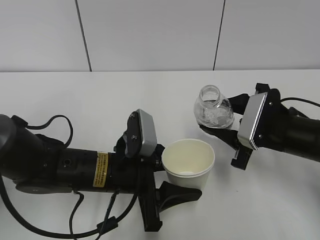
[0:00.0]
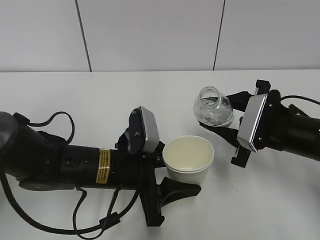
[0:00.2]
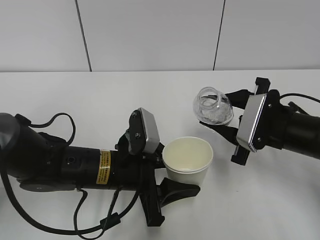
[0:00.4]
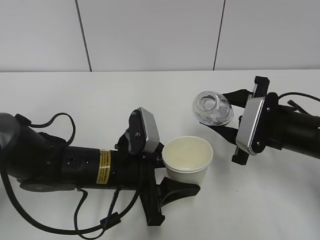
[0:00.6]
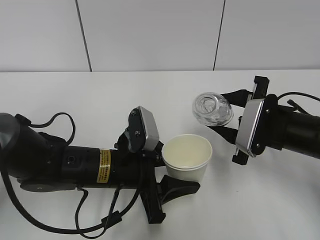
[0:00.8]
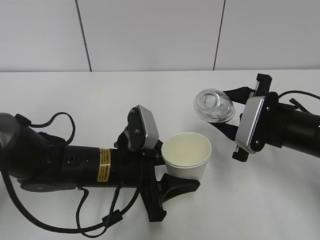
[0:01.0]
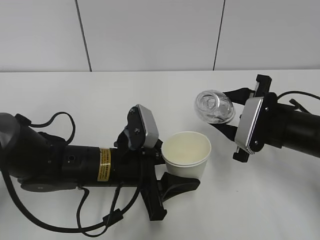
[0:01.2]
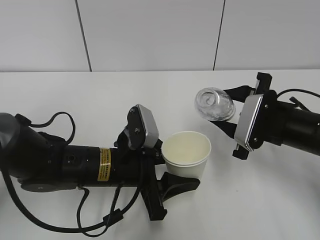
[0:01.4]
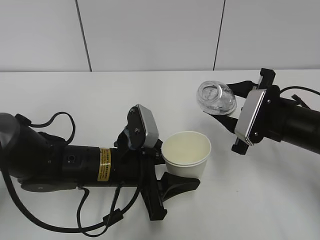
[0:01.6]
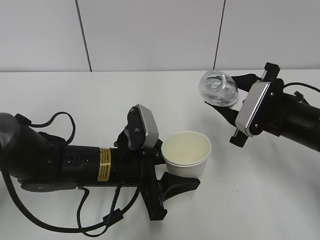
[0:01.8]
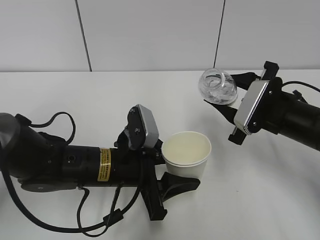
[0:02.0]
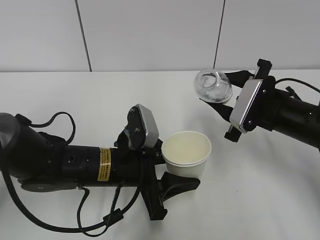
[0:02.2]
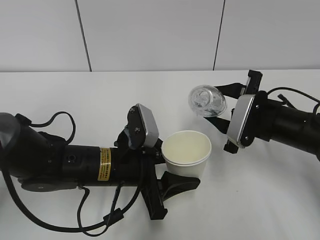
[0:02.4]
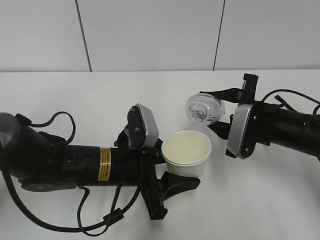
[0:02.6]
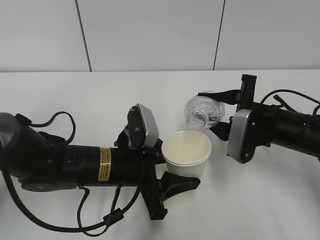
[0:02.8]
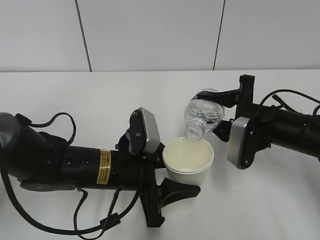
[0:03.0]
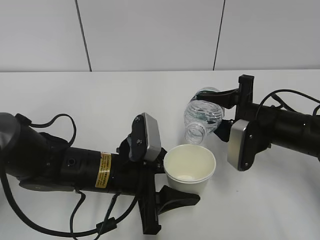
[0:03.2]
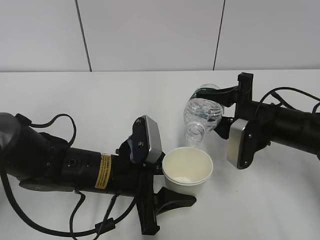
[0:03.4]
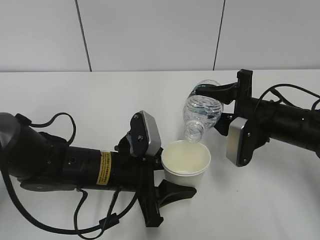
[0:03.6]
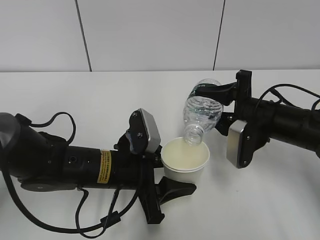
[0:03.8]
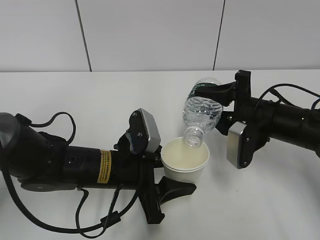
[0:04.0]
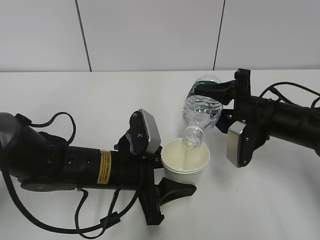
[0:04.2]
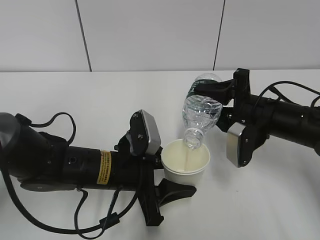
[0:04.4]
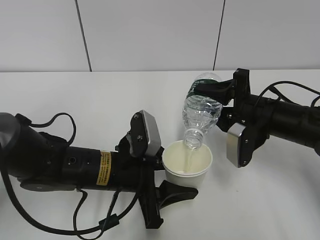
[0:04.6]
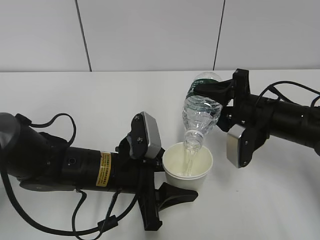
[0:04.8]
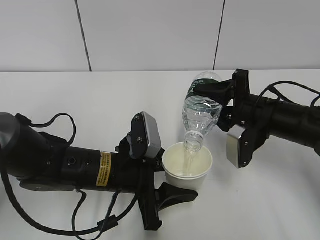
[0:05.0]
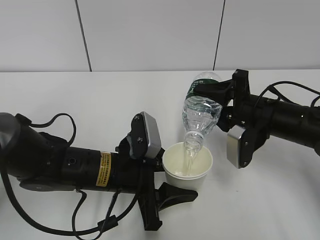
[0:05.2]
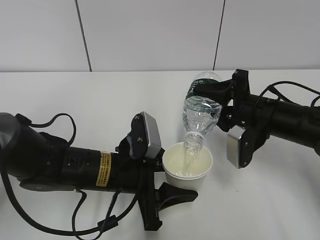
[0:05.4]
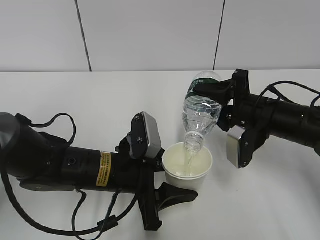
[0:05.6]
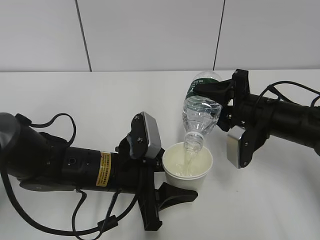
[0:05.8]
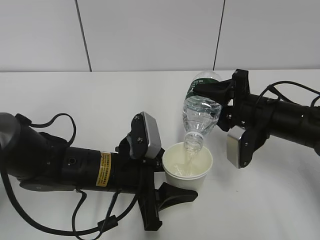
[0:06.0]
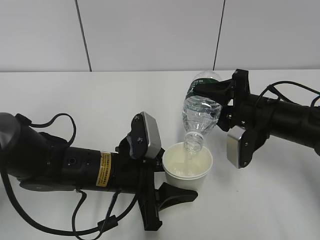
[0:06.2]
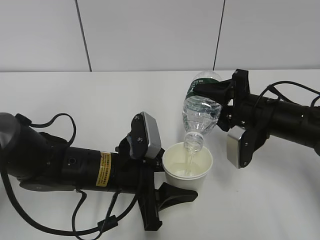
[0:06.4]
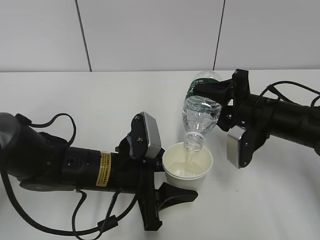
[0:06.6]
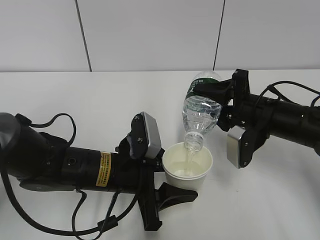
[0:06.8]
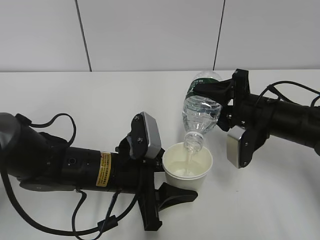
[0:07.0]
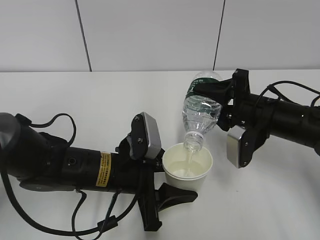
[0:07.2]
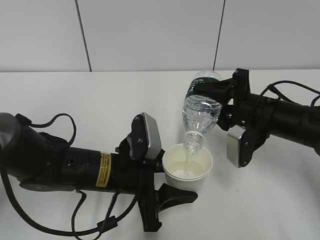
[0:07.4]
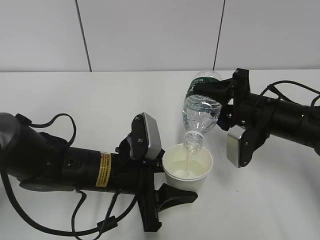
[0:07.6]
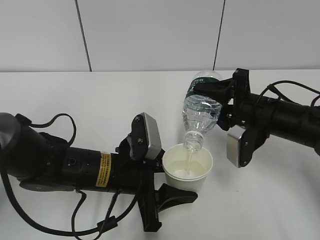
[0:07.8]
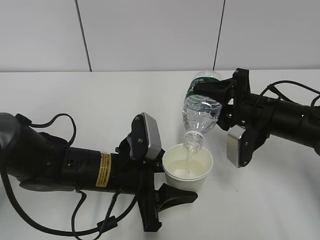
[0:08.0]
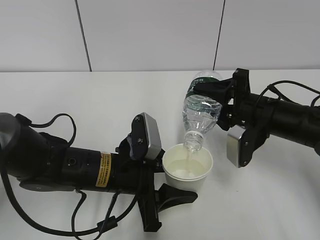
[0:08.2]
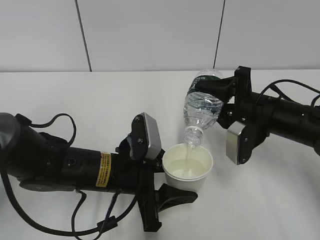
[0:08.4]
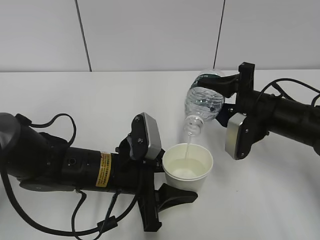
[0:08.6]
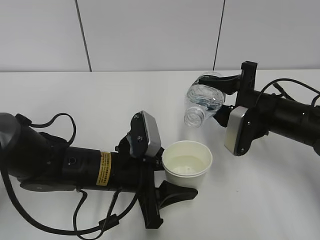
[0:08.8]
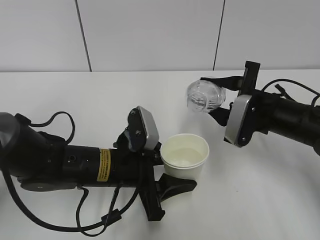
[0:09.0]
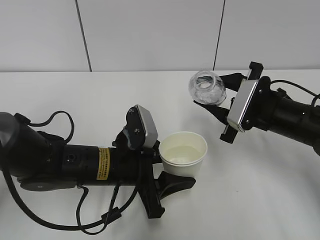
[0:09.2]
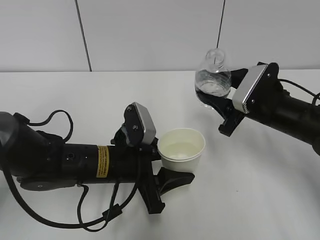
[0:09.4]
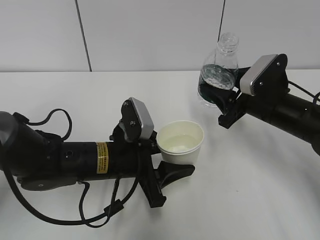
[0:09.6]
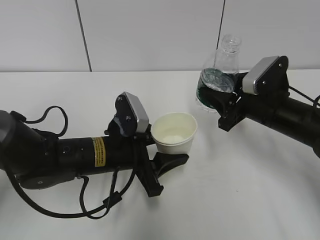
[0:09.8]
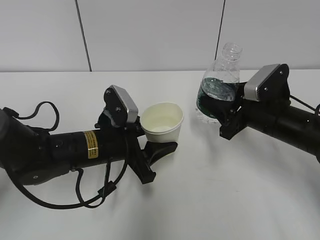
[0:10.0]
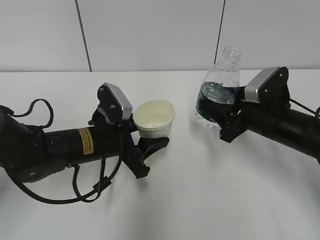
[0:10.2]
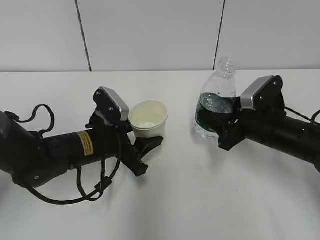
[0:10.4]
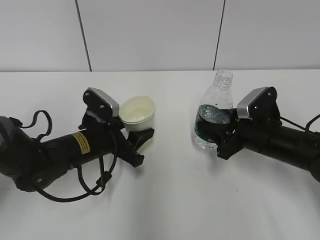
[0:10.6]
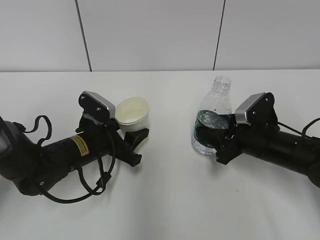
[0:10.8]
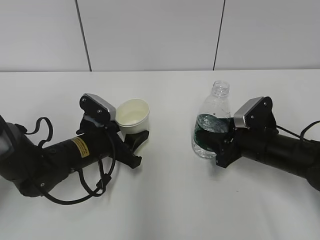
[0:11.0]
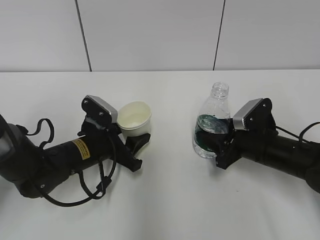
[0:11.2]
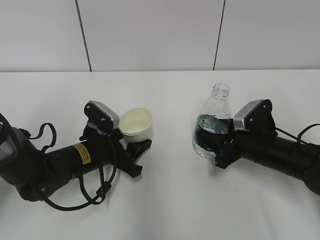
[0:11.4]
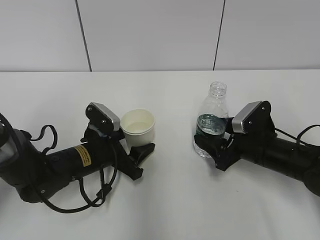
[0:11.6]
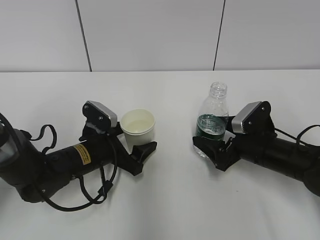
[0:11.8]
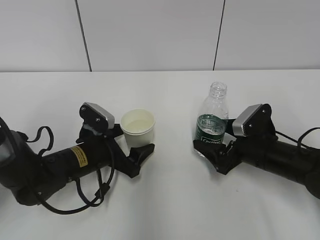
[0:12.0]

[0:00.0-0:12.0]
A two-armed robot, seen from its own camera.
Step, 0:00.0 to 0:03.2: Fill water with the left hand.
Step, 0:00.0 to 0:03.2: Pour water with the right hand.
Step, 0:03.4 to 0:04.0: Collect water with the right hand.
Step, 0:04.2 to 0:05.6: Place the paper cup with the left hand.
Step, 0:04.2 to 0:05.6: Place the water bottle with the right hand.
0:00.0 to 0:01.6: The grippers make only small movements.
0:03.0 to 0:04.4: The grippers make only small movements.
0:04.4 to 0:06.0: Neither gripper changes place.
0:06.0 to 0:07.6: Neither gripper changes place.
0:09.0 to 0:10.4: The left gripper moves forward, some 5 cm.
0:10.4 to 0:12.0: The right gripper shifts some 5 cm downward, and opens up; the left gripper opens its fingers.

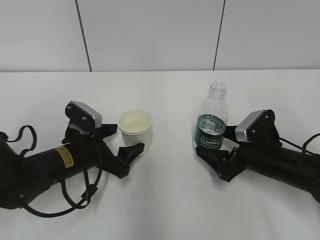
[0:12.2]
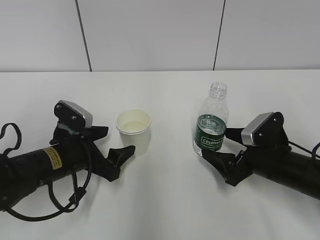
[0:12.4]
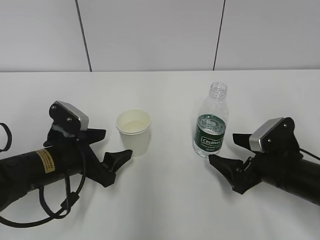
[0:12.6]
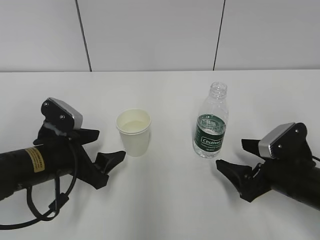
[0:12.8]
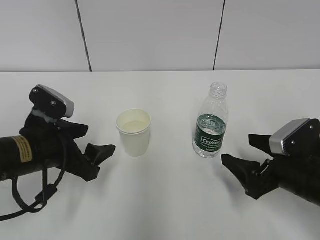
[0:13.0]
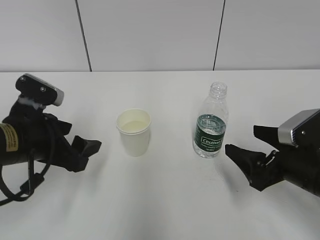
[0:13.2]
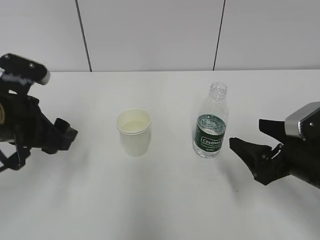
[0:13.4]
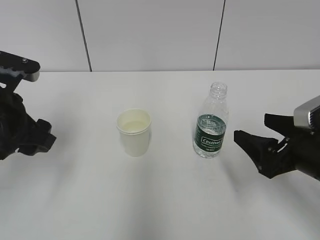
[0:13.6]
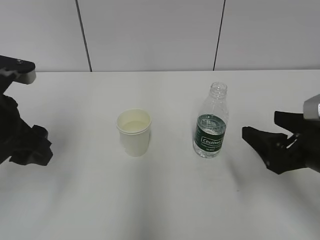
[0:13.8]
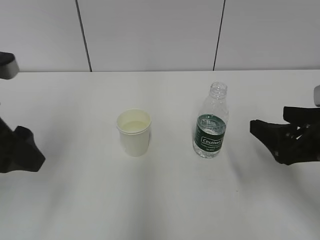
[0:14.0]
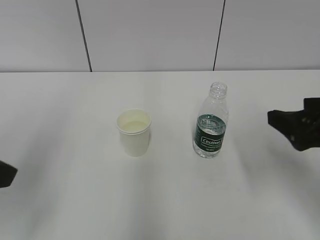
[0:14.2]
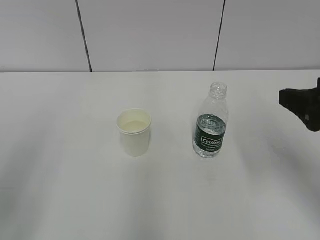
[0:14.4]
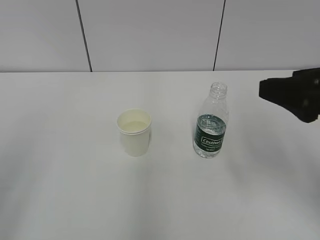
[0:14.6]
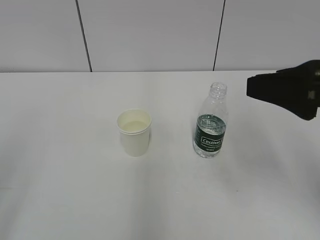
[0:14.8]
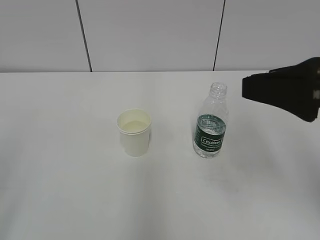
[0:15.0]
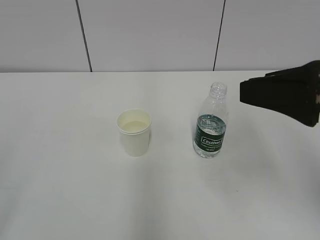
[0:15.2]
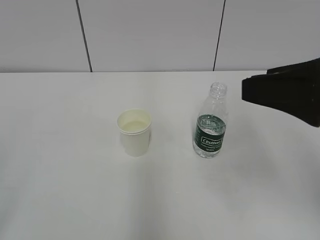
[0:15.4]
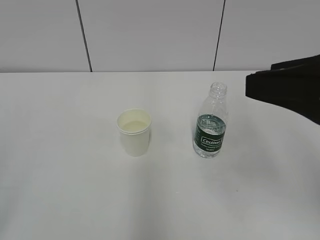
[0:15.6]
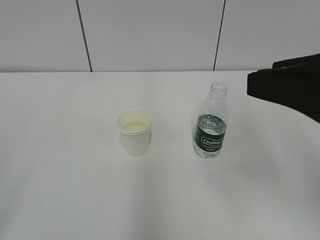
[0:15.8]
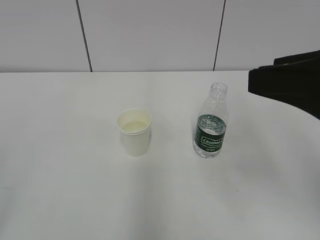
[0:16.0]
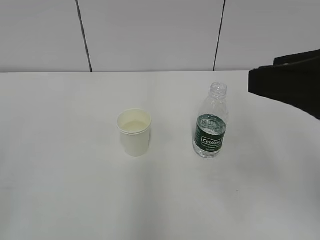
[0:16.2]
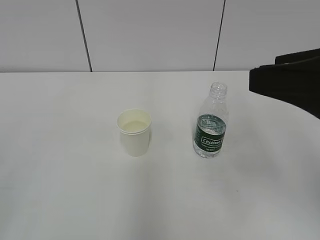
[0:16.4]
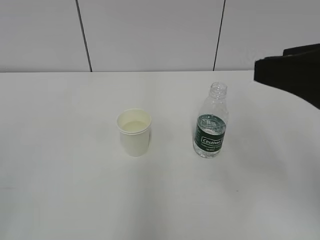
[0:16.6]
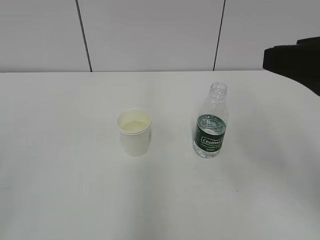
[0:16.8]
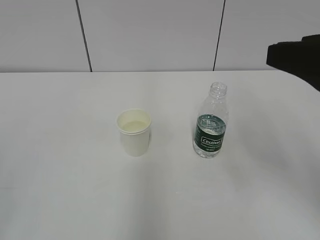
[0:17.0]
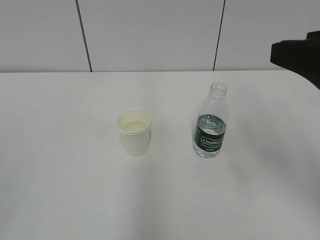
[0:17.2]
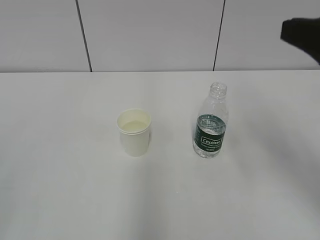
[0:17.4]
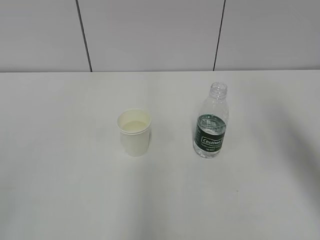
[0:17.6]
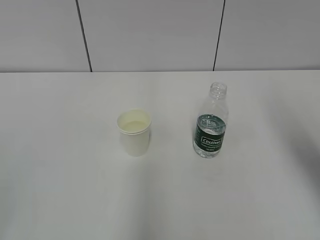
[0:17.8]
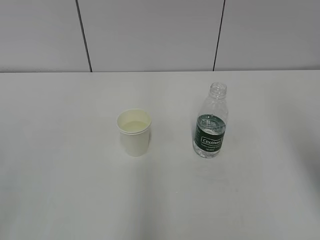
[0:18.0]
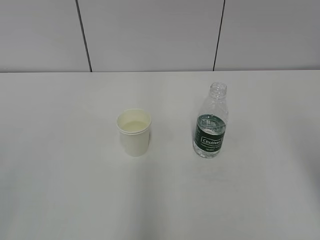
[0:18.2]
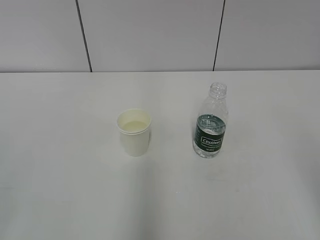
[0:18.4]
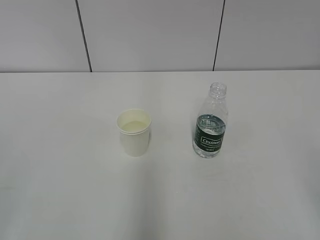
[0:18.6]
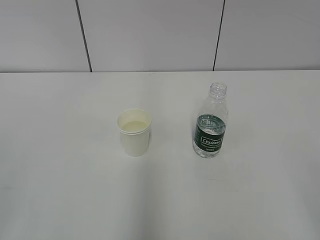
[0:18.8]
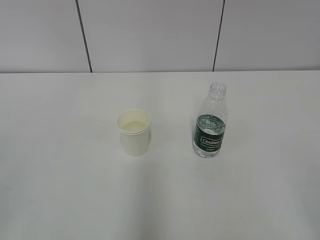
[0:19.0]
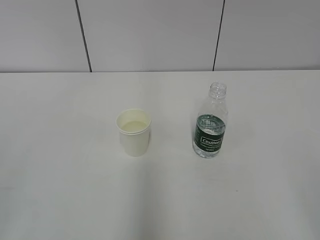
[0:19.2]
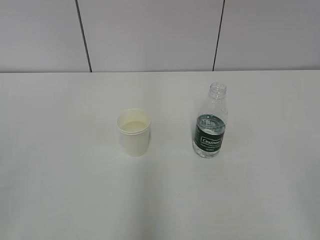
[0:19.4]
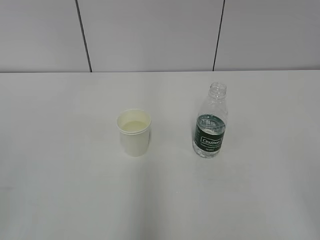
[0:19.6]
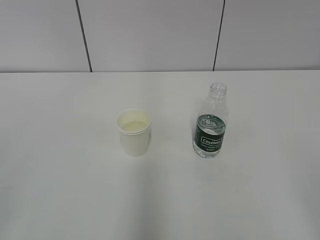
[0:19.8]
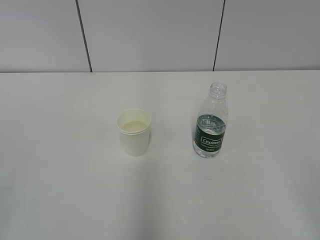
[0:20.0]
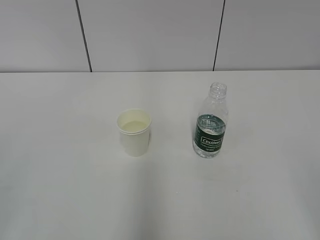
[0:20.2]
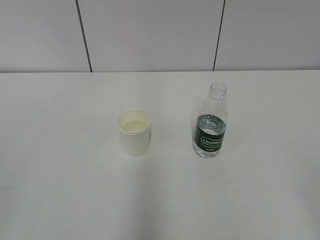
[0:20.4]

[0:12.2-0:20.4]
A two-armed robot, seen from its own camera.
0:12.2 to 0:13.8: The left gripper travels upward and to the left by approximately 20 cm. Meanwhile the right gripper is displaced upward and backward by roughly 15 cm.
0:13.8 to 0:15.4: The right gripper goes approximately 15 cm upward. Meanwhile the left gripper travels backward by roughly 25 cm.
0:15.4 to 0:17.2: There are only small adjustments of the grippers.
0:17.2 to 0:18.8: The right gripper moves backward, approximately 20 cm.

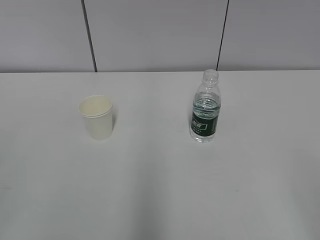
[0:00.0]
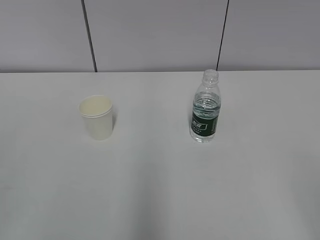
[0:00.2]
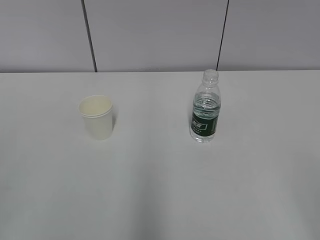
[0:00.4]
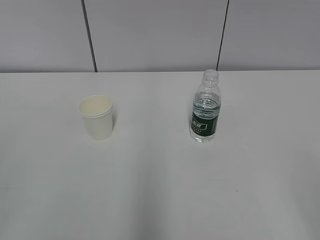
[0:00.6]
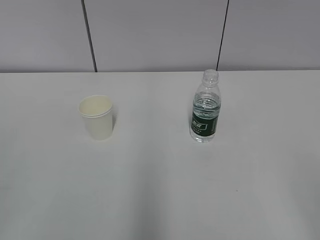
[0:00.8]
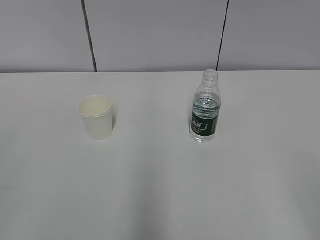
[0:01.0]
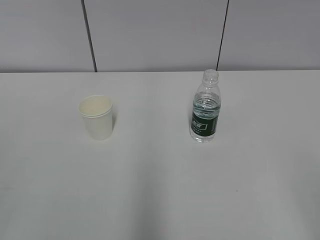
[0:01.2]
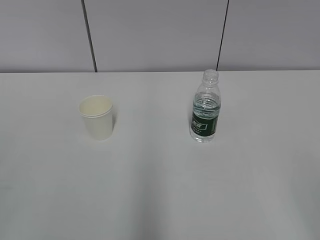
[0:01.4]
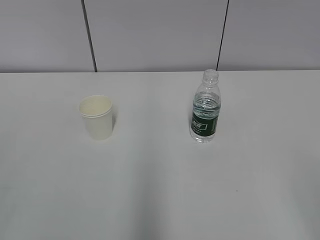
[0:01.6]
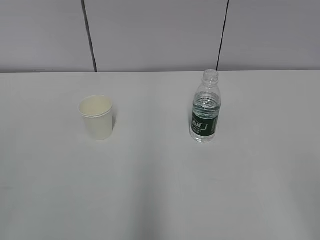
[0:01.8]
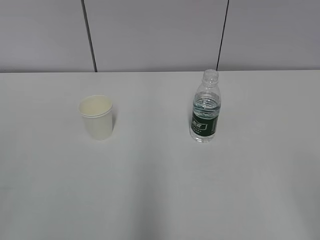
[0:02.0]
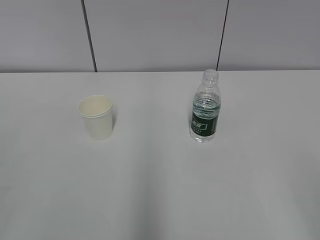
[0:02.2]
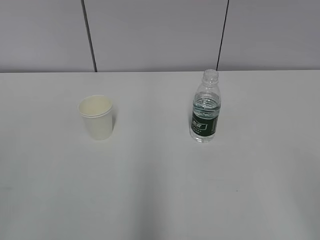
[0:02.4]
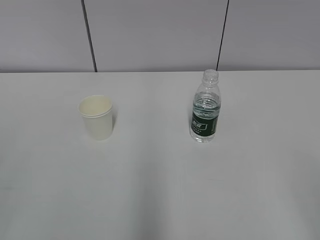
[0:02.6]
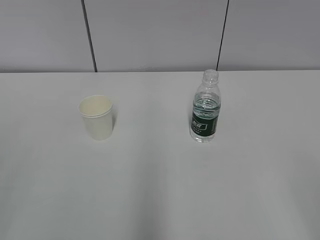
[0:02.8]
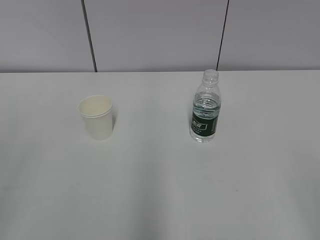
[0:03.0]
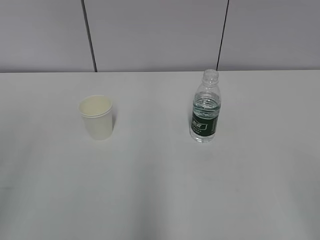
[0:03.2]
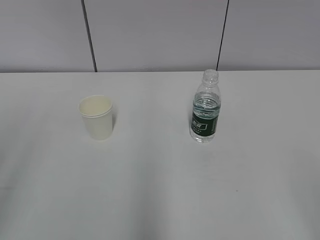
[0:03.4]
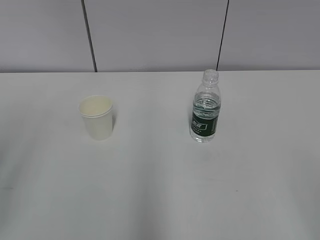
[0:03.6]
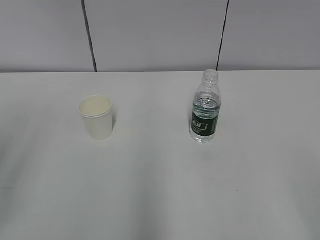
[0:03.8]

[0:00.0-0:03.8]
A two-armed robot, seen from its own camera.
0:01.2 to 0:02.6: The two grippers keep their place.
